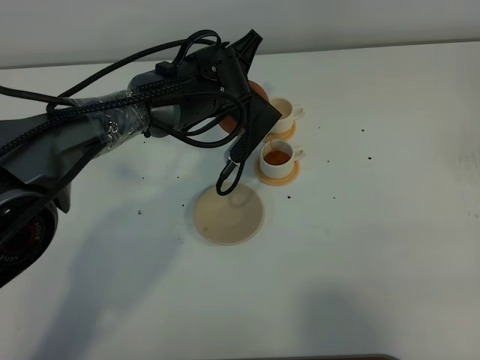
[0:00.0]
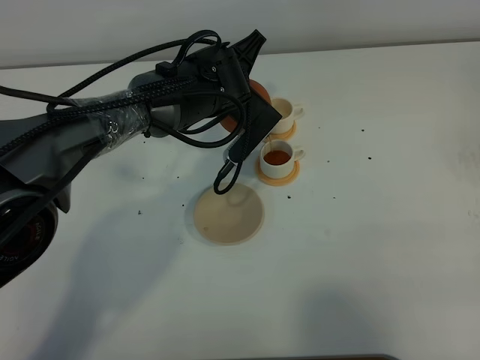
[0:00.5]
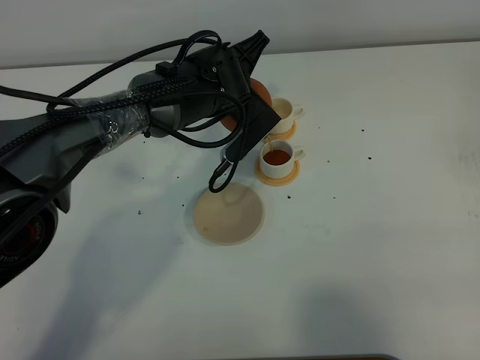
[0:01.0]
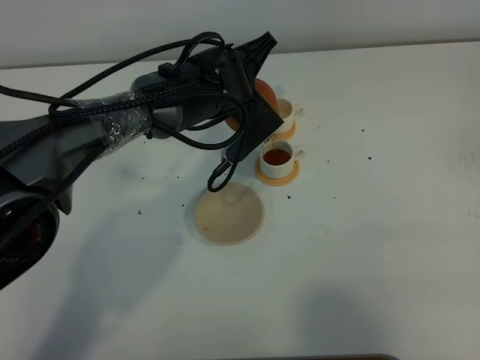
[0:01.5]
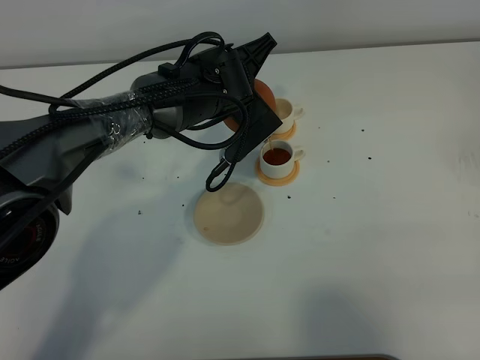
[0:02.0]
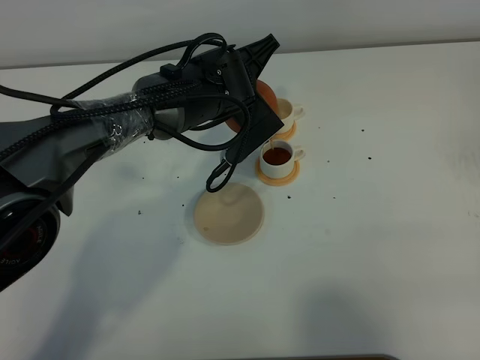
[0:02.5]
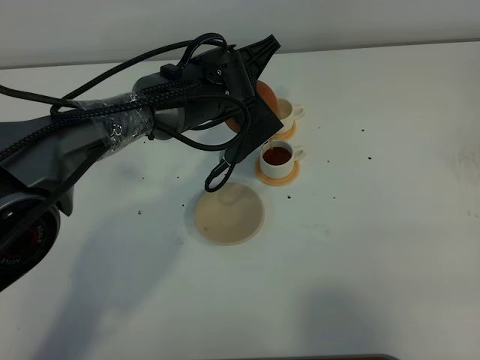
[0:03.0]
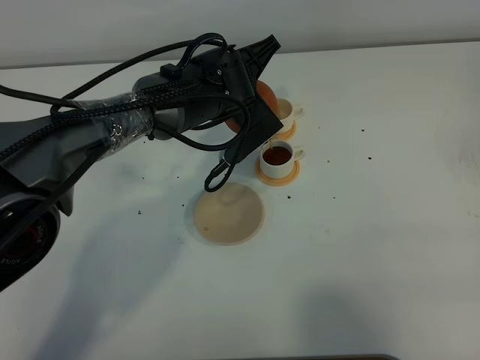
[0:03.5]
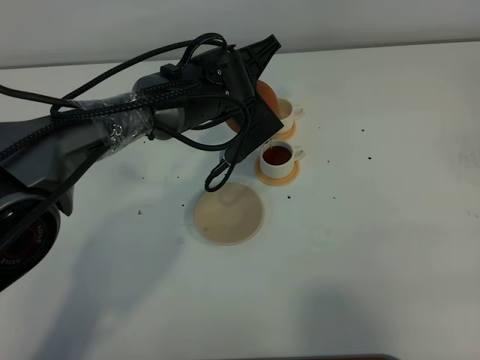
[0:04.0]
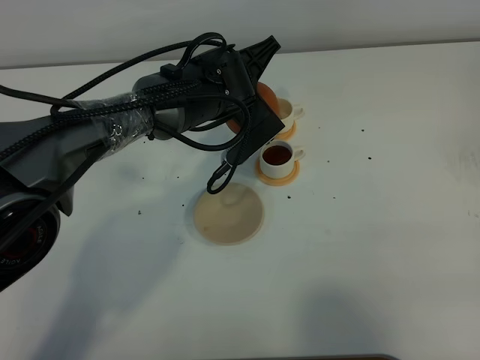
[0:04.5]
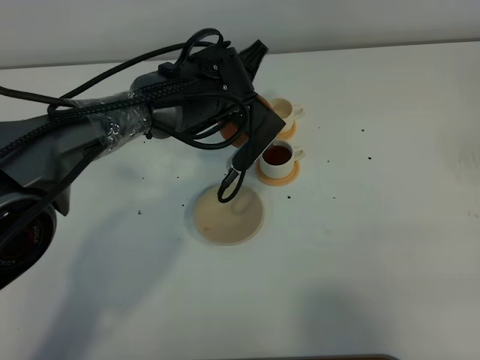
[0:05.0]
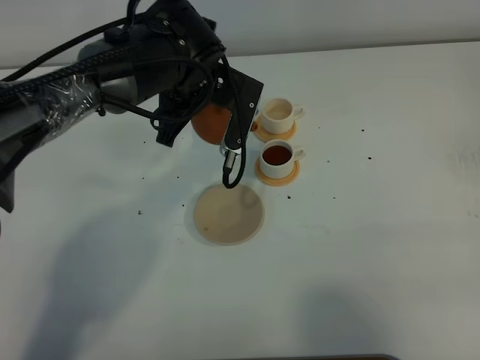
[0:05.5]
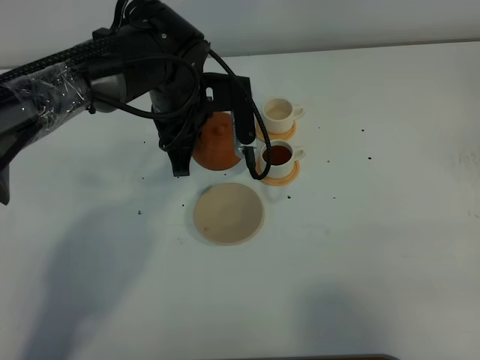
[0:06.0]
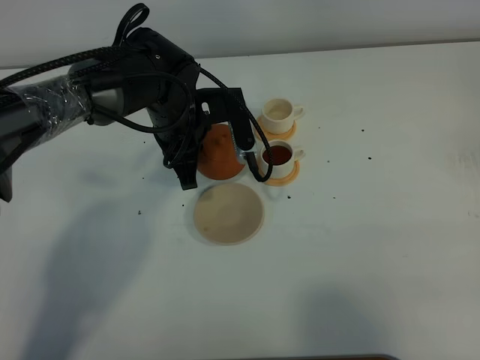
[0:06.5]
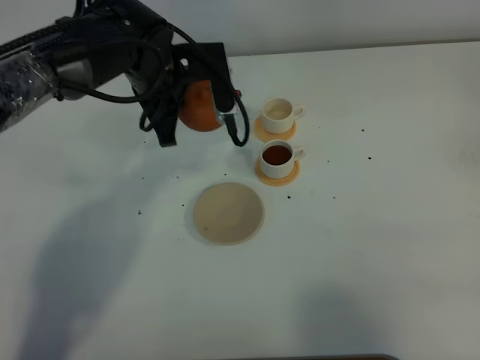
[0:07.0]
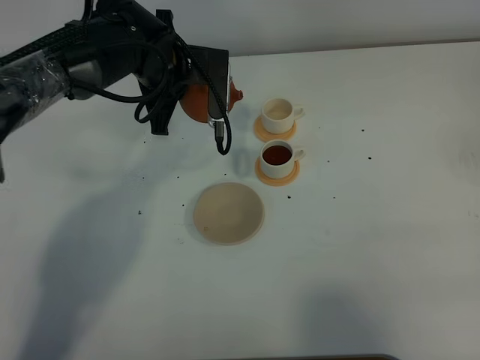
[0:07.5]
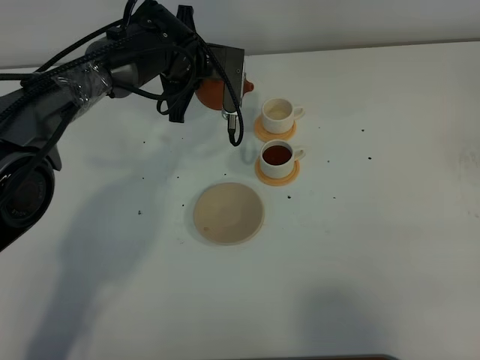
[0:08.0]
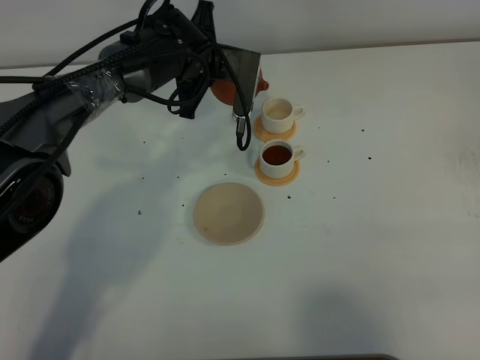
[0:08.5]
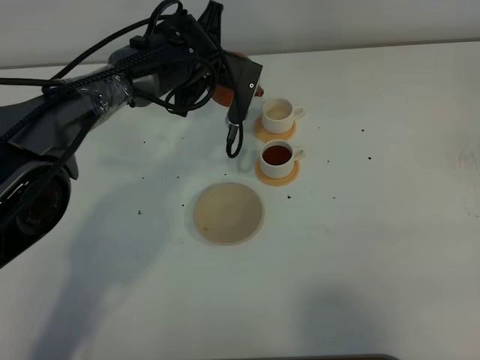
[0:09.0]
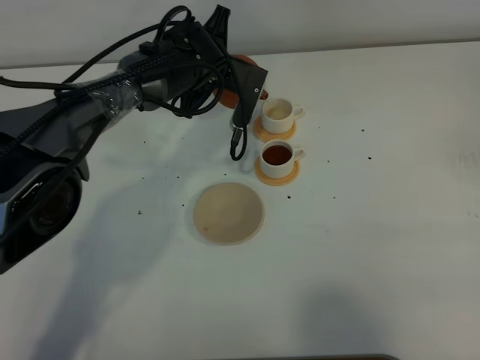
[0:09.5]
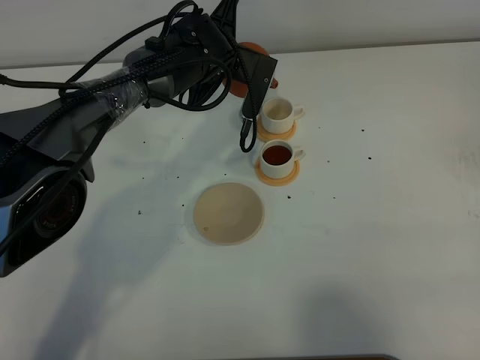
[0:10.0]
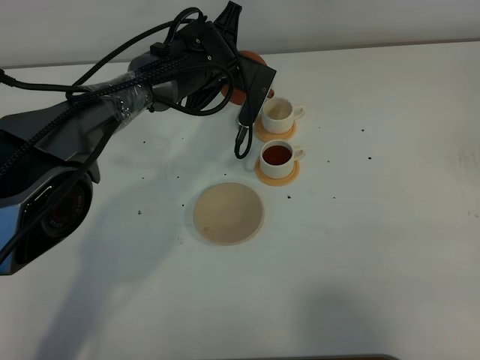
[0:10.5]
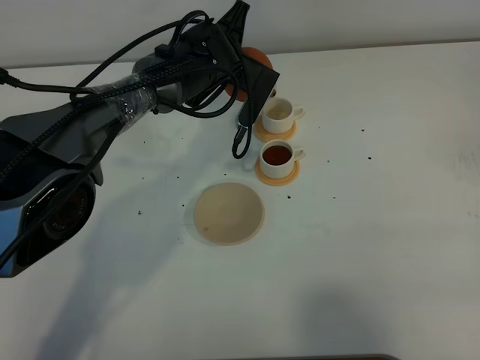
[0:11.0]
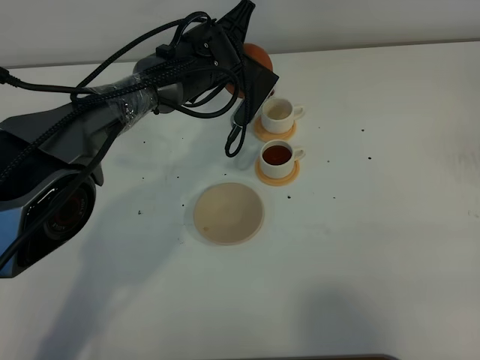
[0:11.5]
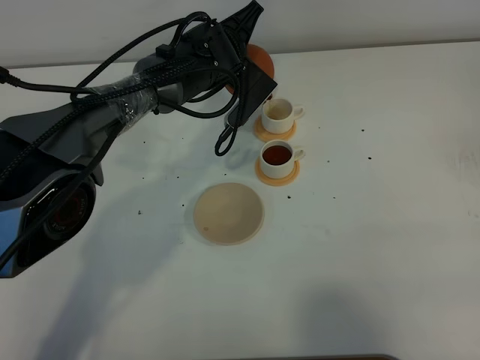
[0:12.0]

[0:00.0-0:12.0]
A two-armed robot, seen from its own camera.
Task of the whole recording: grasp the brown teapot and pour the tea into the two white teacups one by one, put the brown teapot back in its original place.
0:00.0 to 0:02.0: The grippers move only a little.
0:02.0 to 0:04.0: Both grippers stay put.
0:04.0 to 0:06.0: The left gripper moves to the left, approximately 5 cm.
0:06.0 to 0:08.0: The left gripper heads forward, covering some 10 cm.
0:08.0 to 0:10.0: There are only small adjustments of the grippers.

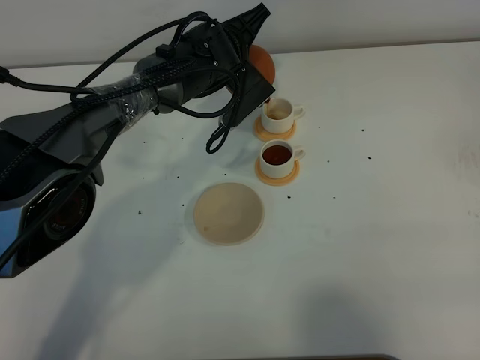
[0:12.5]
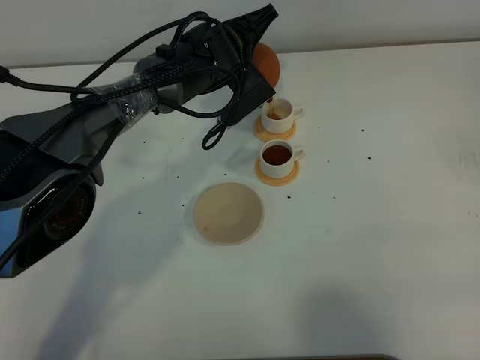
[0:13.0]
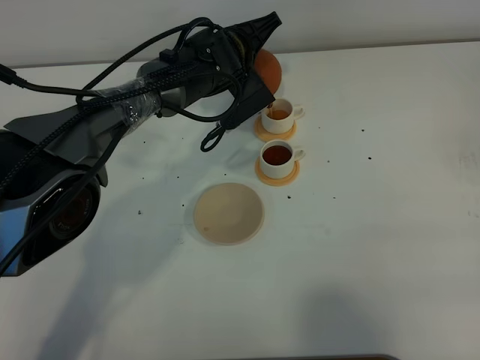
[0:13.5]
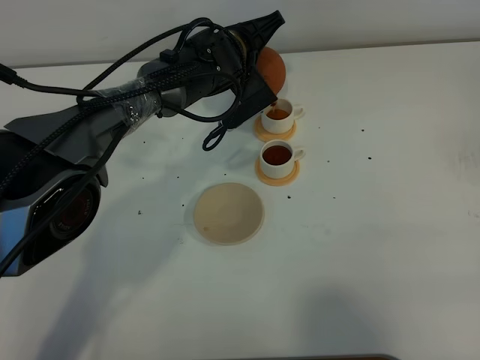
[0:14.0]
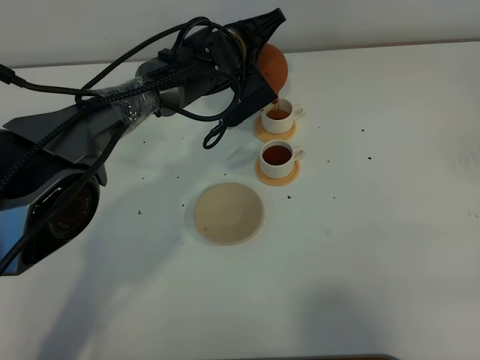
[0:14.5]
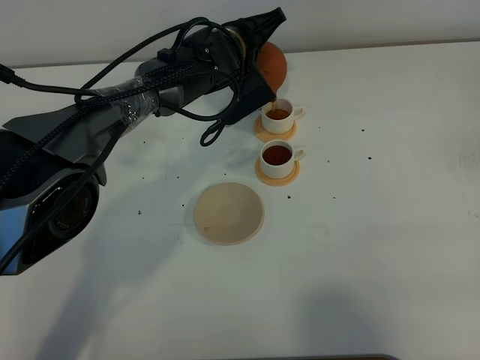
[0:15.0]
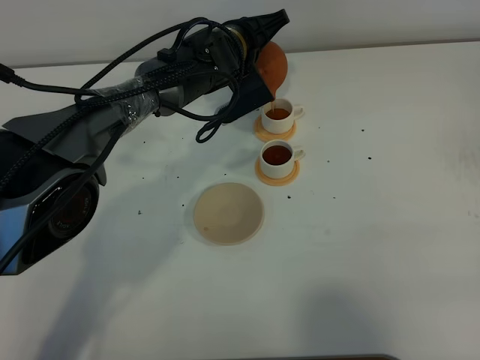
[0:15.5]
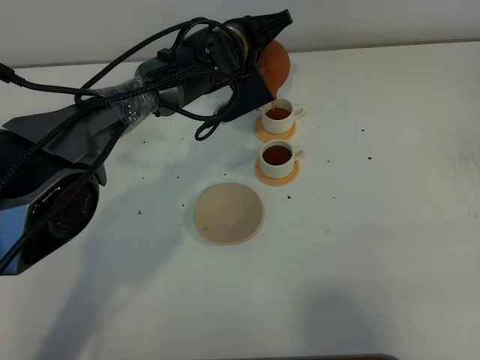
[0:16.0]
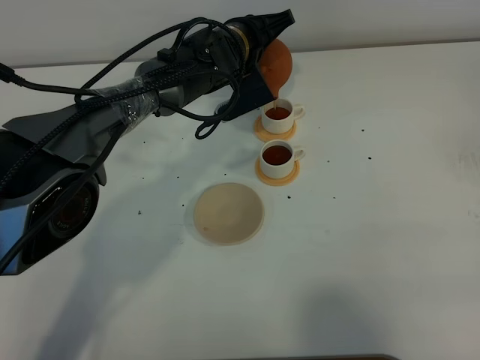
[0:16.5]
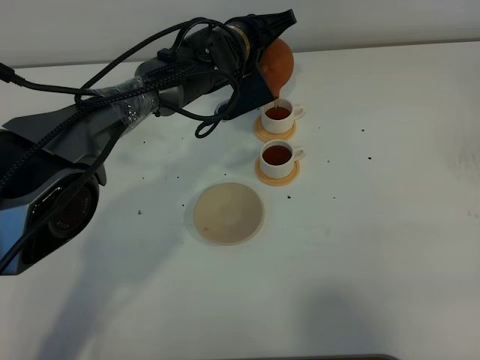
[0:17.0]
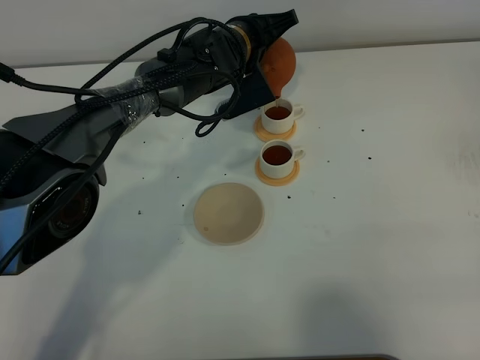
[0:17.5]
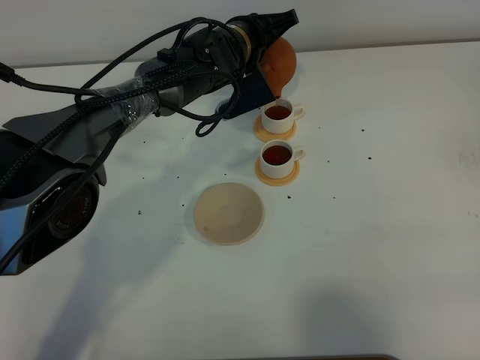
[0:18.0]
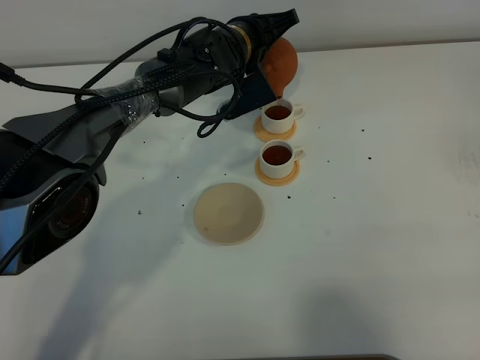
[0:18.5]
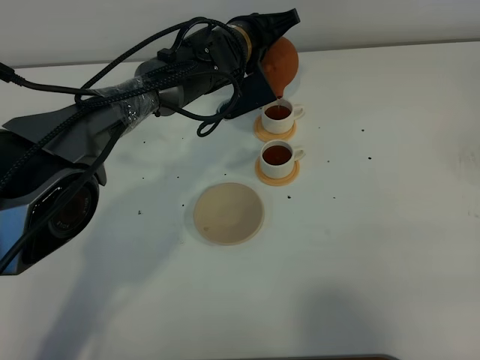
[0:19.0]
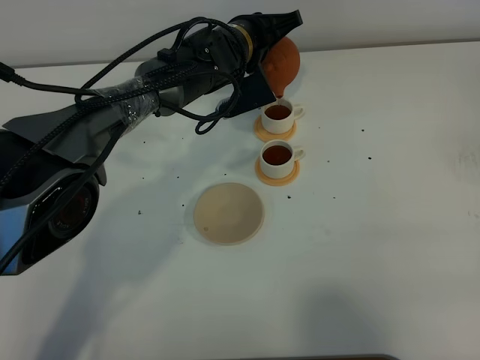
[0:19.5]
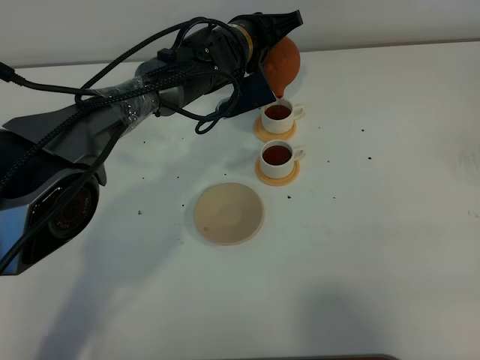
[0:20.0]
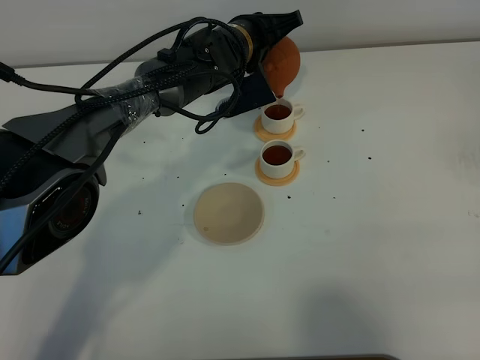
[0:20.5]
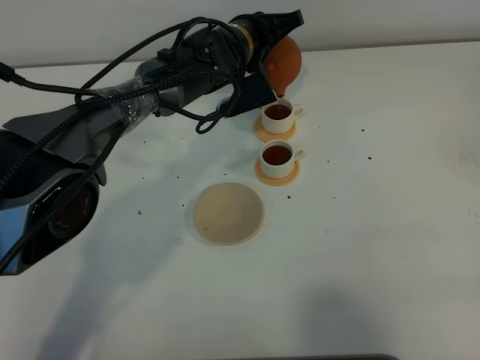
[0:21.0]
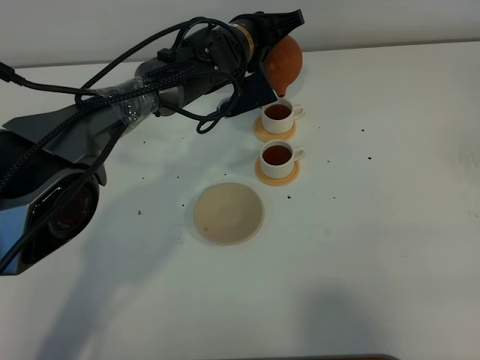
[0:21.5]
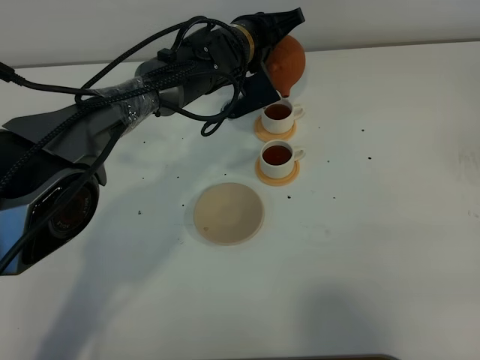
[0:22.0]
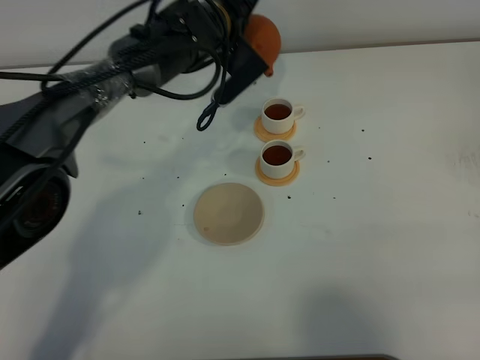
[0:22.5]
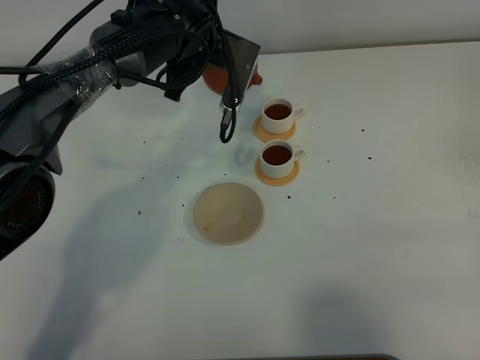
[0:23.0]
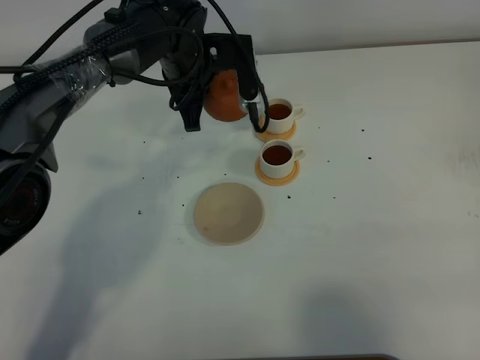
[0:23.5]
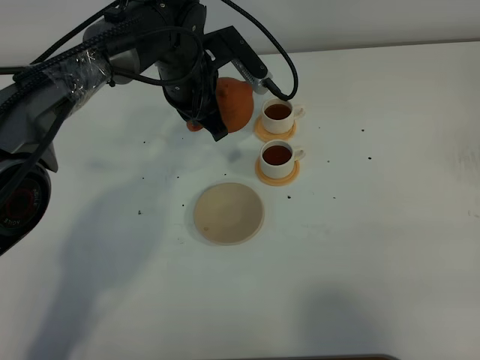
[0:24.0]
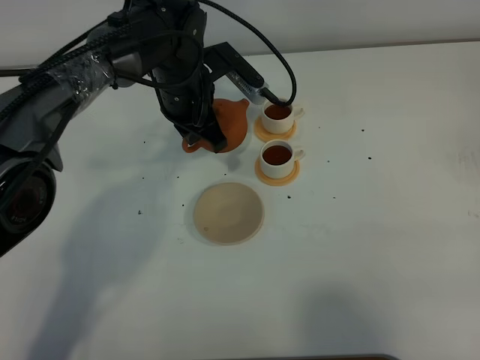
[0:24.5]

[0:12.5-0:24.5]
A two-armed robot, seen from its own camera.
Task of the whole recording: grasp the brown teapot and pour the tea into the two white teacups one by one, put the brown teapot back in its original place.
Step, 0:12.5 to 0:22.0: Pour tea into the teacup with the left gripper.
0:12.5 to 0:16.5: There are only small adjustments of the grippers.
0:16.5 to 0:18.5: Neither gripper changes place.
0:18.5 to 0:20.5: Both grippers stay put.
0:20.5 to 0:22.5: The left gripper ends up some 5 cm from where it was.
0:22.5 to 0:24.5: The left gripper changes place by approximately 10 cm.

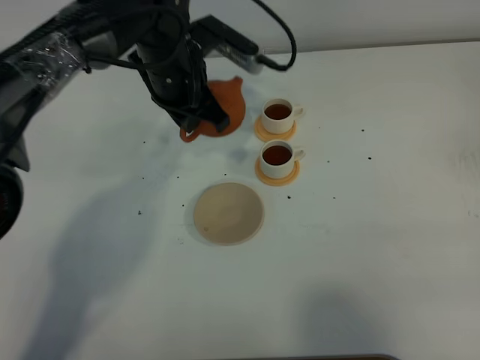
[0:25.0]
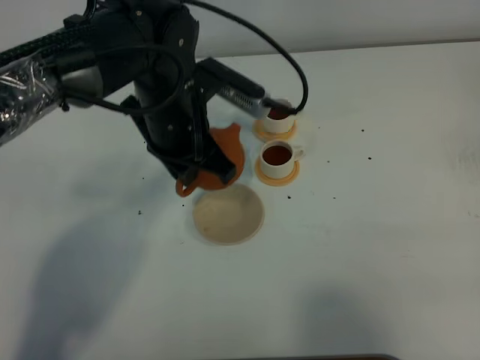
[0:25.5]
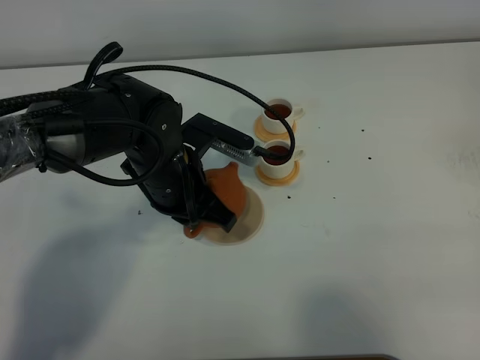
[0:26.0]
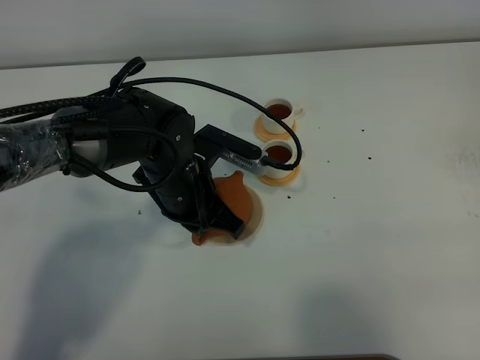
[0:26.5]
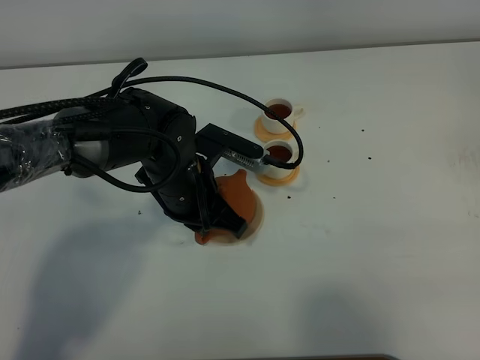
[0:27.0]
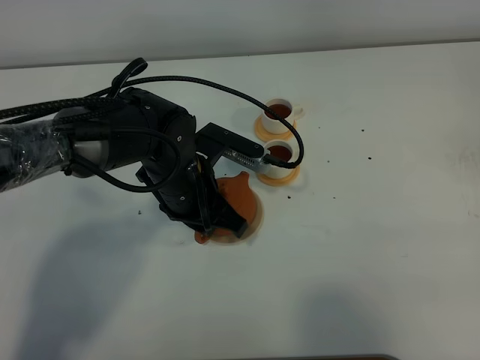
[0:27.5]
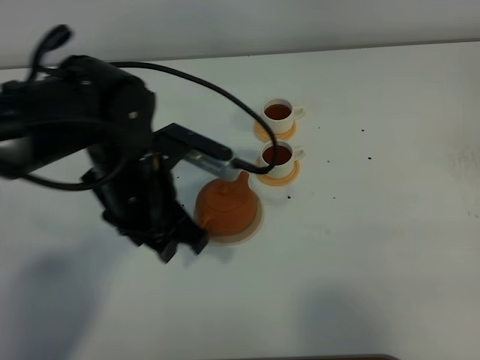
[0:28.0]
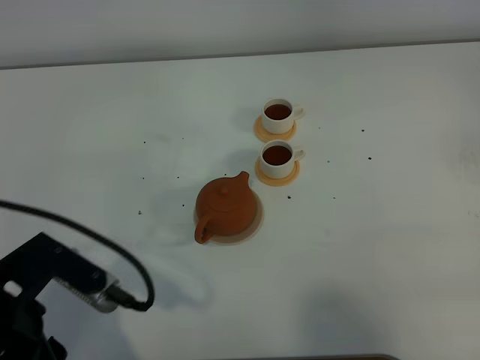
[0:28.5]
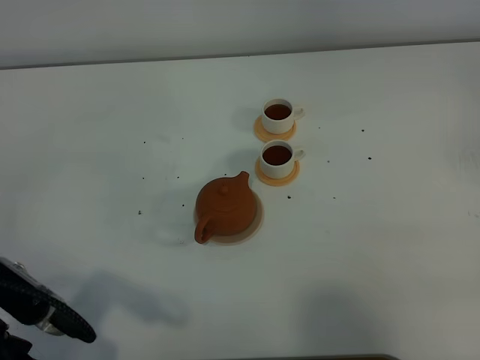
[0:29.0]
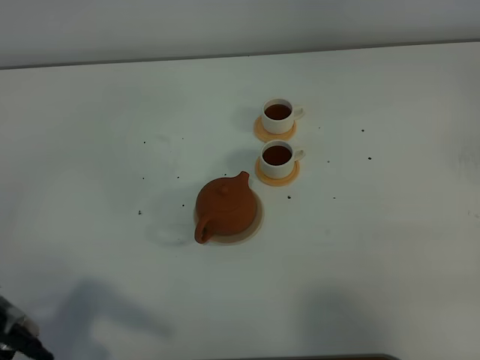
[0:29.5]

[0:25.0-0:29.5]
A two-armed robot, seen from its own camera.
Task of the whole recording: grasp the brown teapot and pour the tea into the two white teacups one by one, put the brown teapot back in its original place.
0:25.0 to 0:27.0: The left gripper moves backward and downward, about 15 cm.
0:27.0 to 0:29.5: The left gripper goes approximately 30 cm backward, to the left and upward, and opens up.
